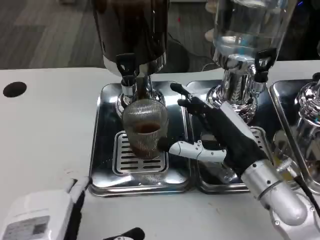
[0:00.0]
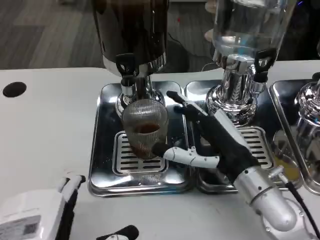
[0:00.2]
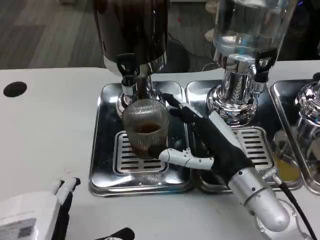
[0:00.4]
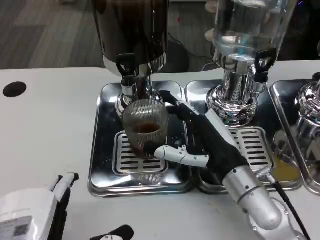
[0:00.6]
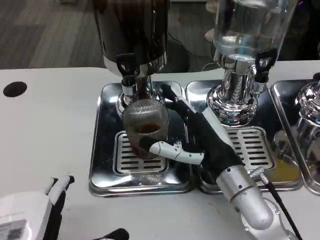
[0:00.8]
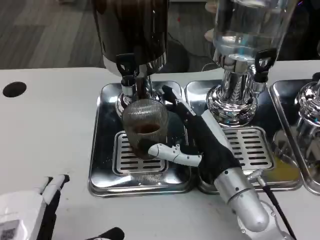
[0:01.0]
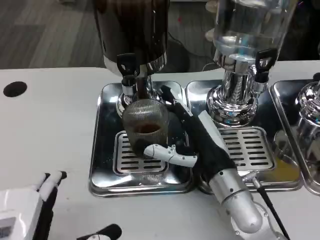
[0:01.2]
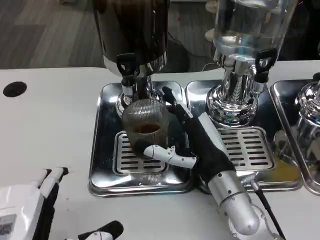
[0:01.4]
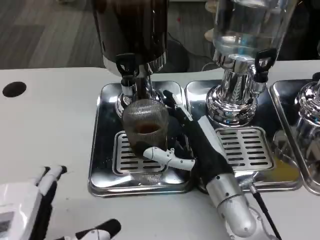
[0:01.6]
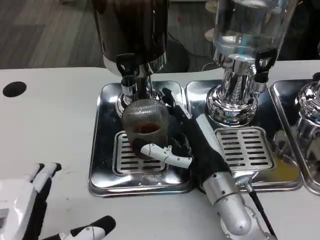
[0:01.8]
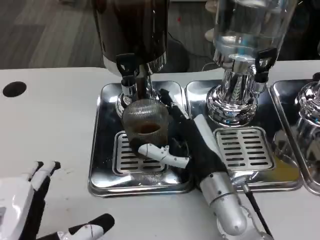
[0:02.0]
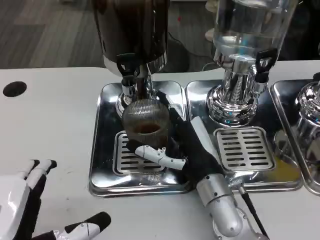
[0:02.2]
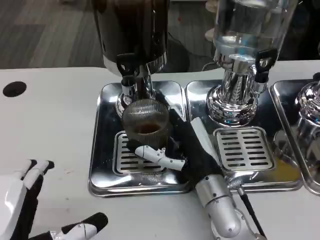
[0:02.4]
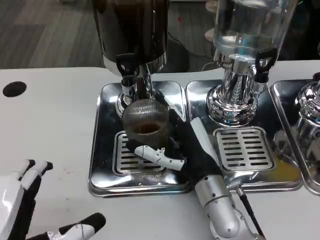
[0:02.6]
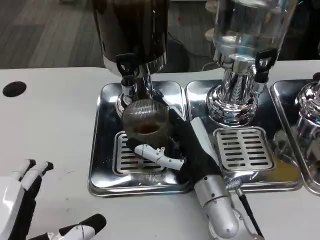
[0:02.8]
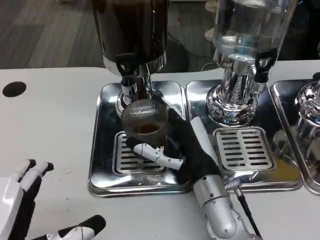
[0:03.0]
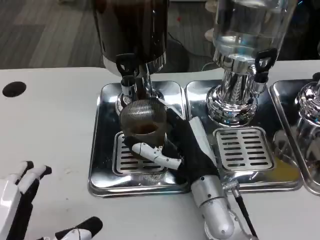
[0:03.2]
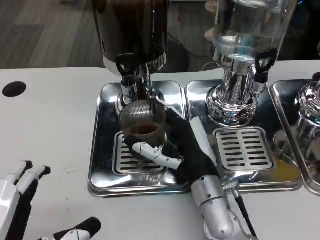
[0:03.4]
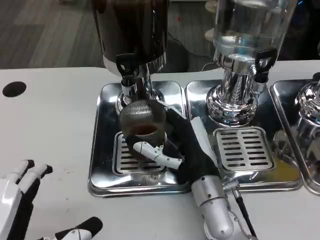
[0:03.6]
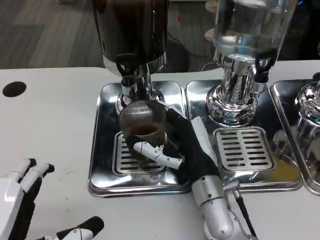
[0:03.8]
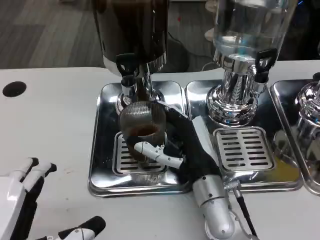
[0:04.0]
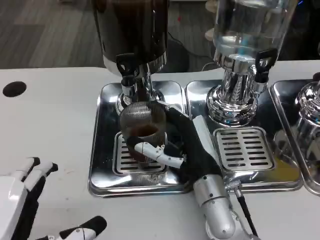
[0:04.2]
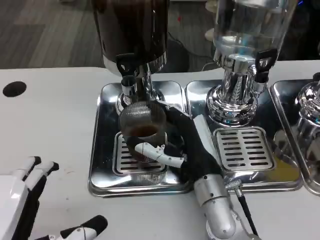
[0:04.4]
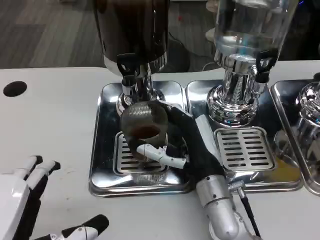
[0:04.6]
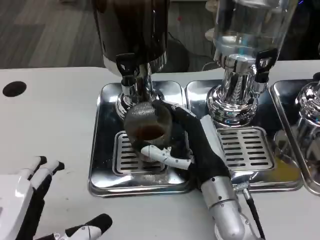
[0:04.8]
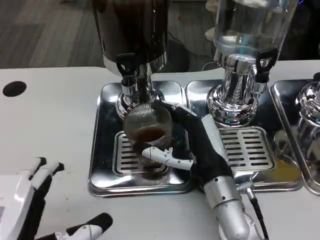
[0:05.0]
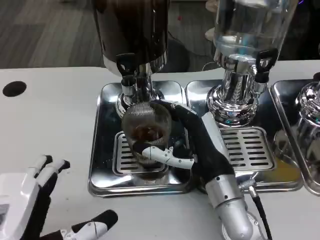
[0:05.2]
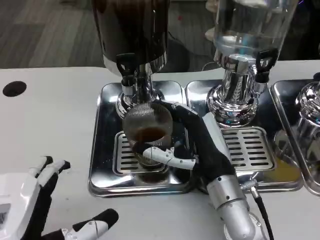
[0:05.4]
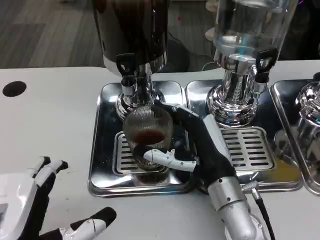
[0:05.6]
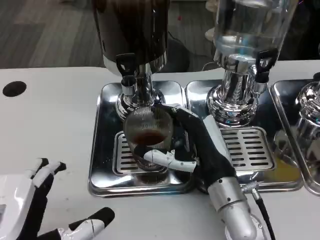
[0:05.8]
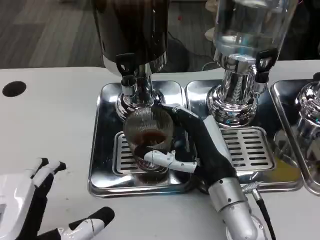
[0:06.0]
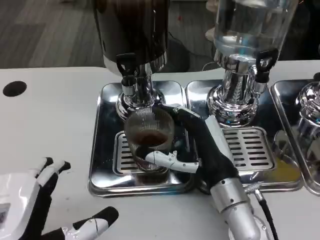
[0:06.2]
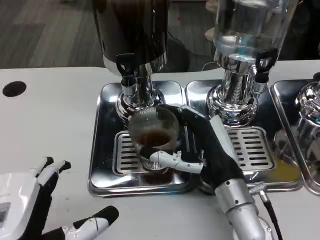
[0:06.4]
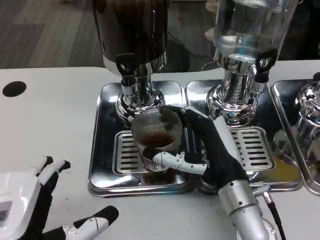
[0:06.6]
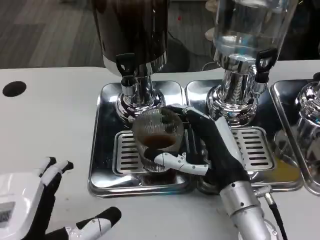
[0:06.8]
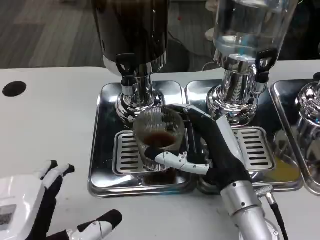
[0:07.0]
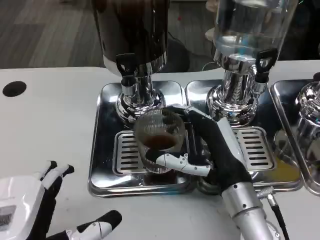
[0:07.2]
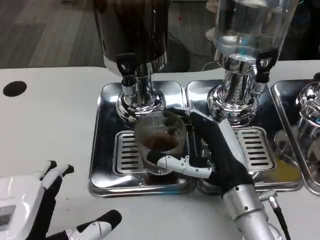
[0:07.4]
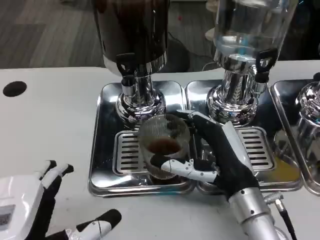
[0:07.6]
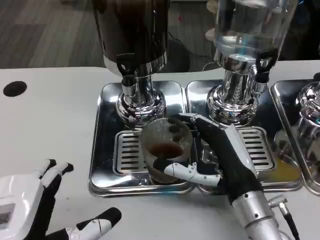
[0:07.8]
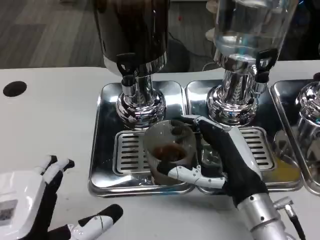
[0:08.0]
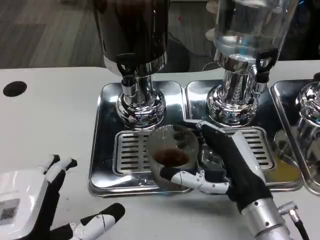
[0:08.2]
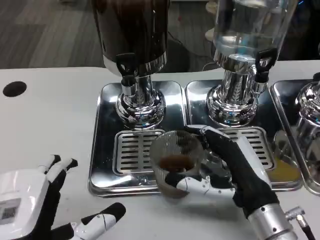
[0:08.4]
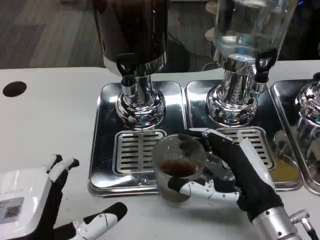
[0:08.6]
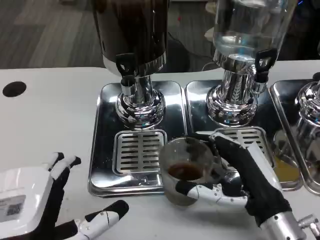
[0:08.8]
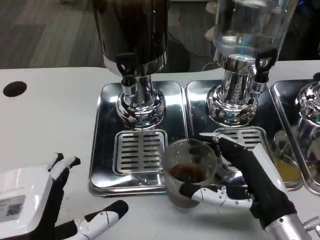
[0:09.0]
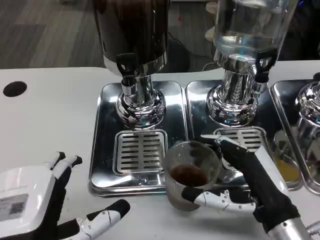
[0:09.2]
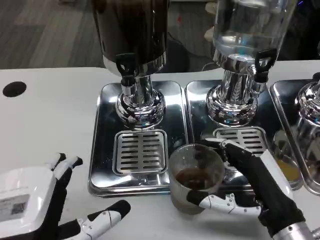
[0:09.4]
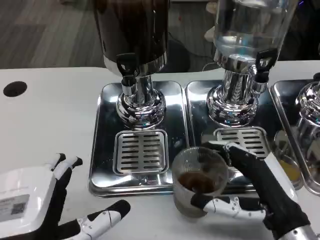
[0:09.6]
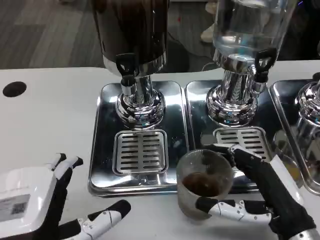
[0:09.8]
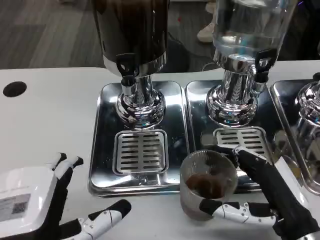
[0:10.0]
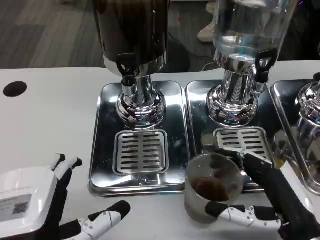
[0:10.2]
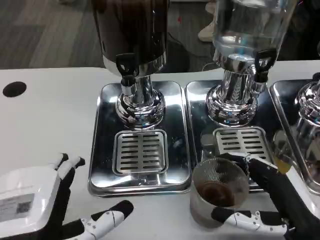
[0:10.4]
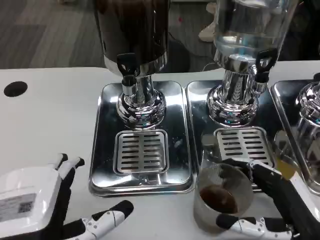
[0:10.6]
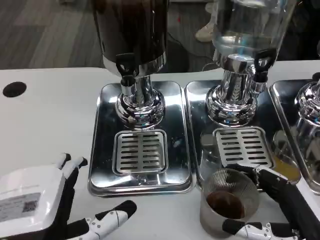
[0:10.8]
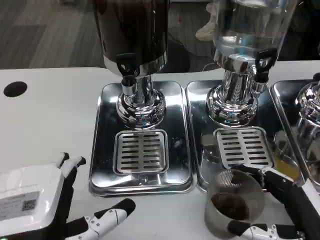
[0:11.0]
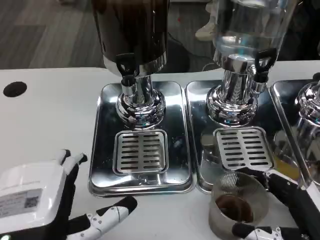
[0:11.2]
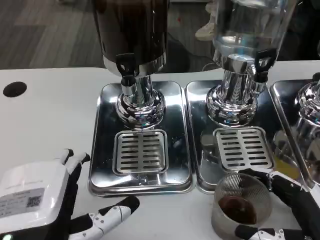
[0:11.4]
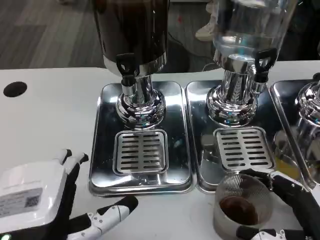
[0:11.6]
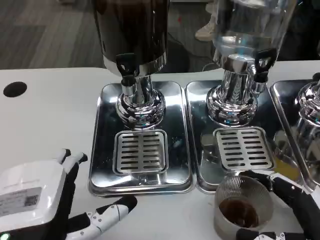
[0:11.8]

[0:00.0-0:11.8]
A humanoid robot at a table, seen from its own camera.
Task of the whole recording: Grasp the cup under the faucet to collect the drink, then remove the cup.
0:00.0 to 0:01.4: The right hand is displaced to the left by some 5 cm.
0:01.4 to 0:03.0: The hands move only a little.
0:03.0 to 0:04.4: Both hands stay about where they are.
0:04.4 to 0:07.4: The hands stay close to where they were, moving slightly.
0:07.4 to 0:08.8: The right hand goes about 5 cm to the right.
0:08.8 to 0:10.4: The right hand moves approximately 5 cm.
0:10.4 to 0:11.8: The hands make only small movements.

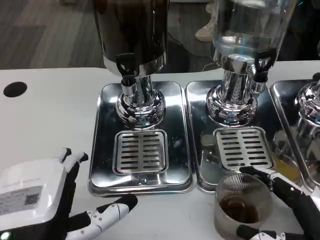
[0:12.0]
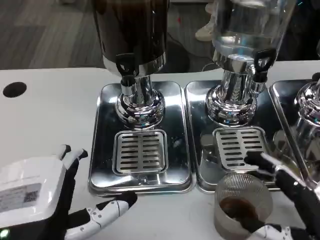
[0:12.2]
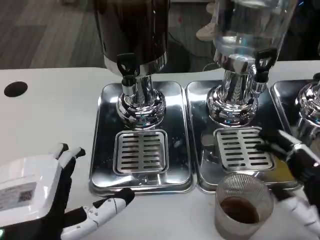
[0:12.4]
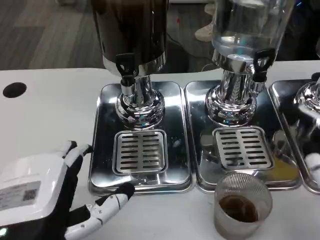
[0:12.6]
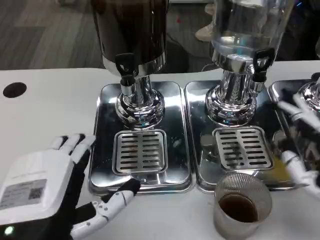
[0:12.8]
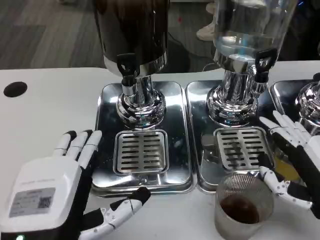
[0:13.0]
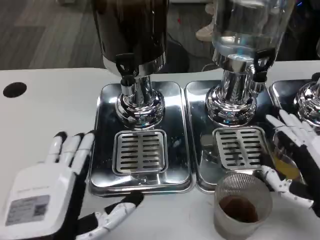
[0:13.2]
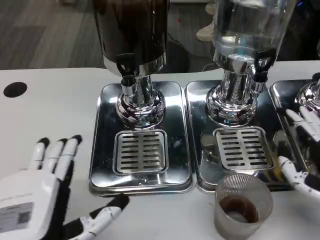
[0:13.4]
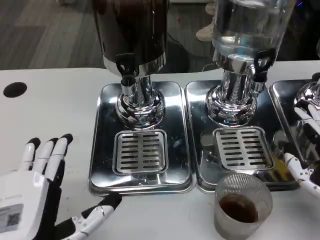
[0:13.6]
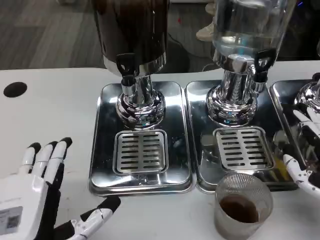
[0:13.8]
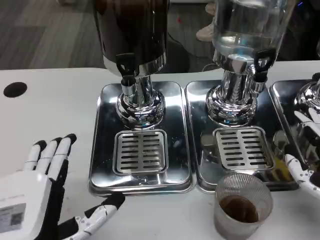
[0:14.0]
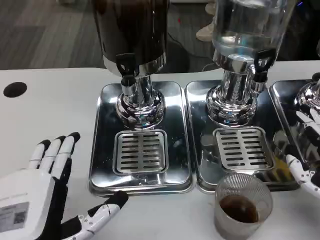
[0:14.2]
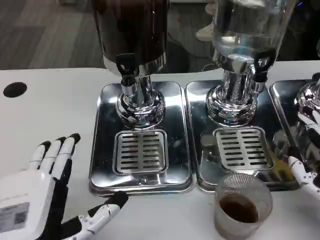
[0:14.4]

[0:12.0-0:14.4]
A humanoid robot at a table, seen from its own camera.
Task of the whole recording: Grasp the cup under the faucet to collect the drink, then remove the cup.
0:12.0 to 0:13.2: The right hand moves upward, about 5 cm; the left hand heads downward, covering approximately 5 cm.
0:13.2 to 0:14.4: The hands make only small movements.

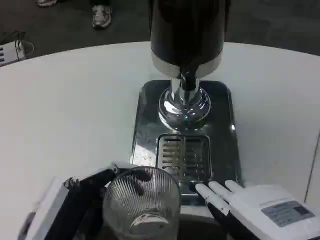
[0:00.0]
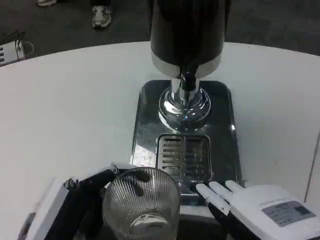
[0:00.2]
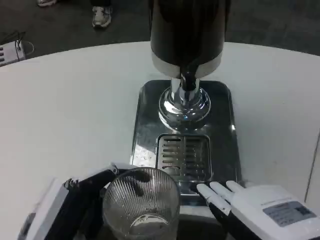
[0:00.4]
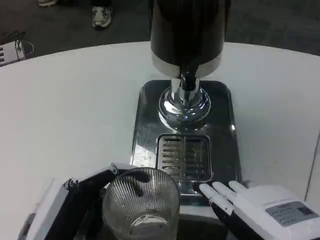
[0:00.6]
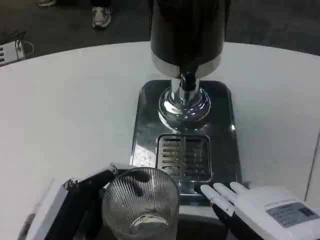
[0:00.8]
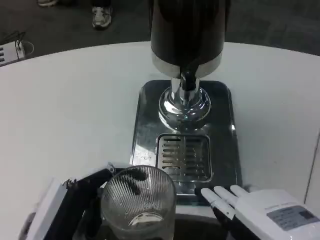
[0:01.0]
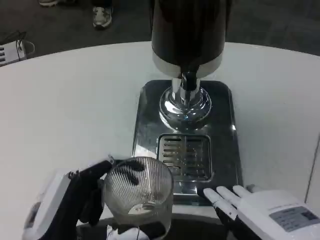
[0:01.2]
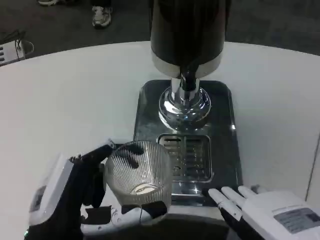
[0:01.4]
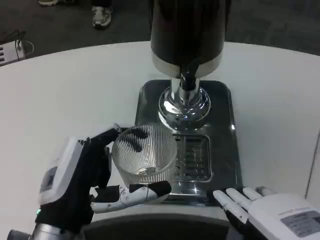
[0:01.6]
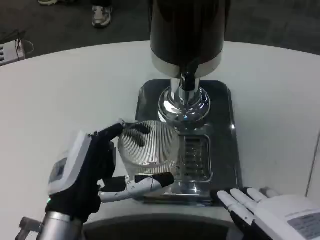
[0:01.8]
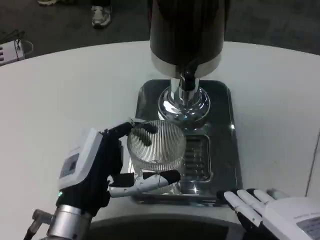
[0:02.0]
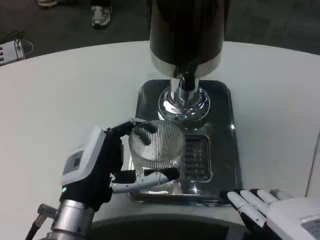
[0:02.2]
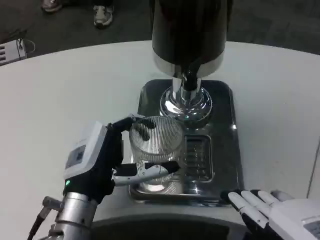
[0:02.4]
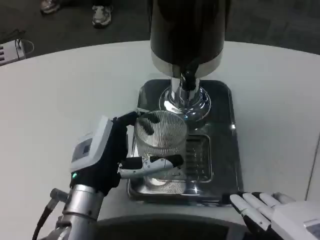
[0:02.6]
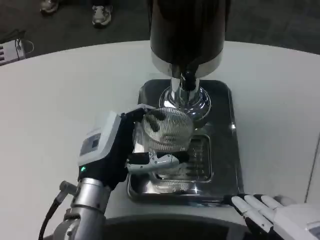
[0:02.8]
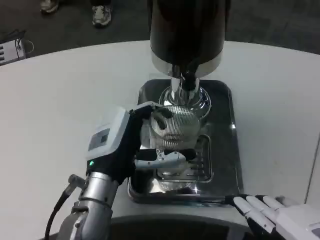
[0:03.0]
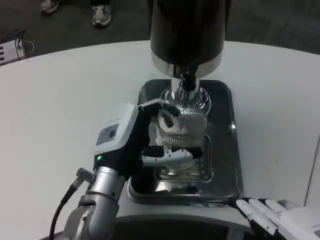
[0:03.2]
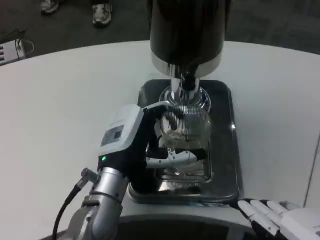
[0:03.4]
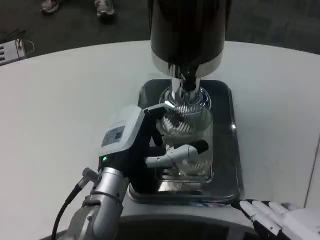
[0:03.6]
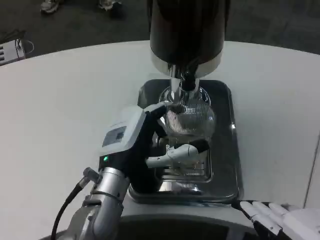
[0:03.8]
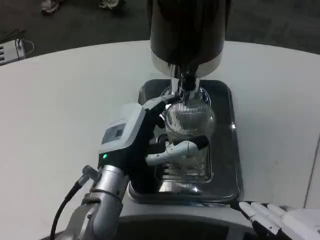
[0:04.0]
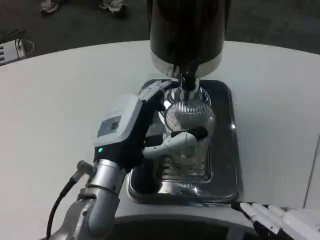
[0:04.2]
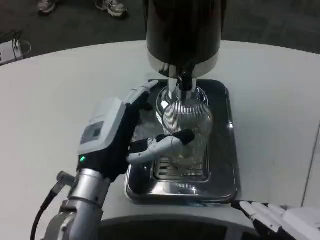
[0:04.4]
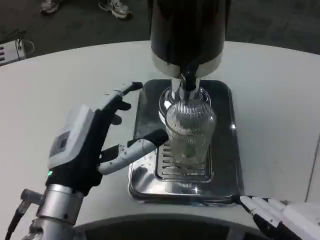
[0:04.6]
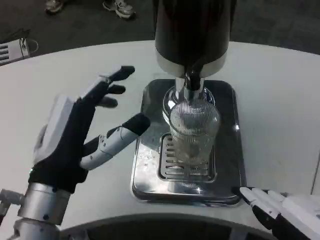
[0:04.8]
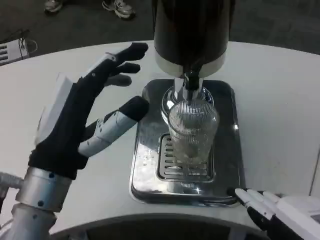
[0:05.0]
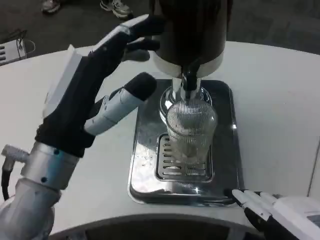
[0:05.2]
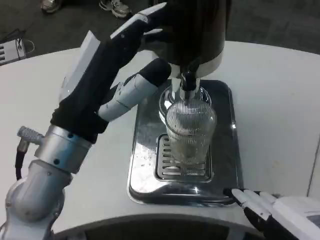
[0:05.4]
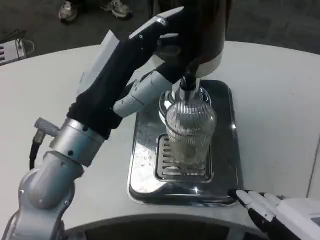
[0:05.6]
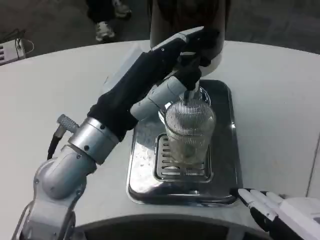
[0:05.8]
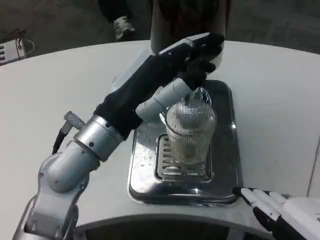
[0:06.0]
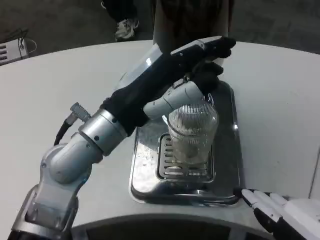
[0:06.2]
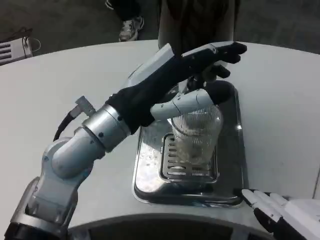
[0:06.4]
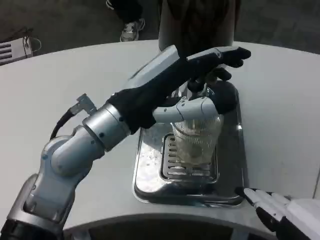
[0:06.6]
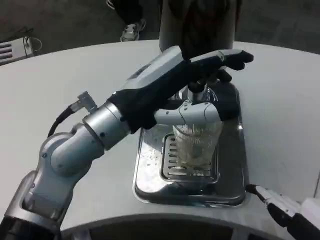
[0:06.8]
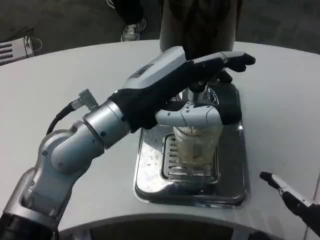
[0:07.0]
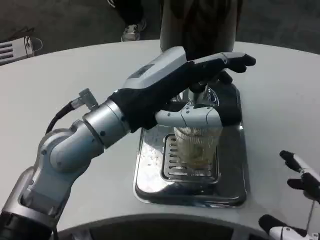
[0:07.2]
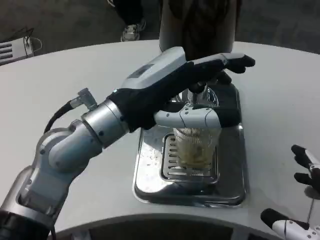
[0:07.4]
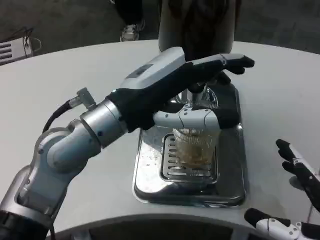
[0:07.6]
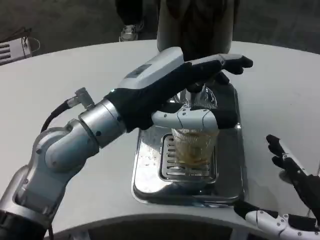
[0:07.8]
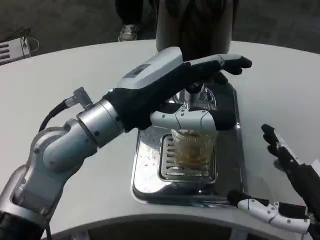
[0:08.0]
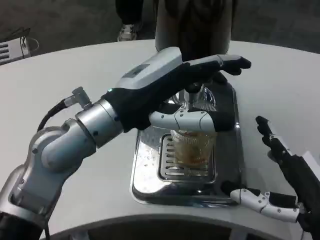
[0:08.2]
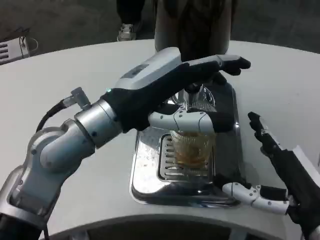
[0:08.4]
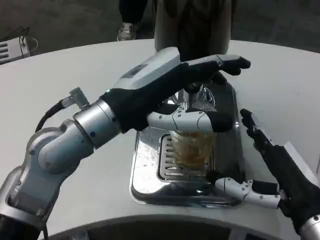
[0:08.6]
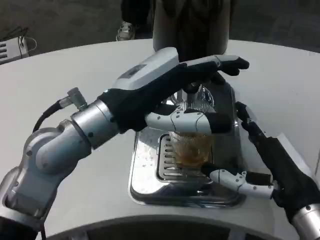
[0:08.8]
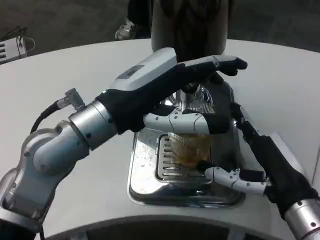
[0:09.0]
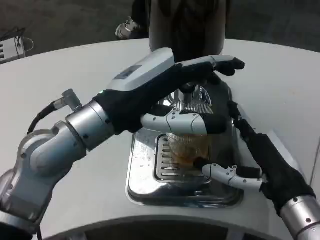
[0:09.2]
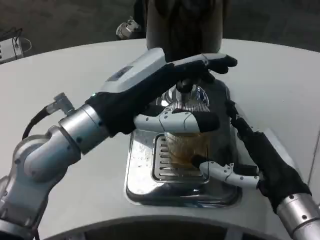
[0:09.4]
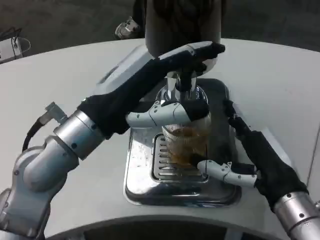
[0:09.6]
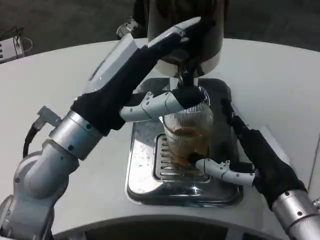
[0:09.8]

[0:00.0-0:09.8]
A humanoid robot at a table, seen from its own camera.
Task of the whole recording: Grasp the cup under the faucet to collect the drink, then remove the cup.
0:00.0 to 0:01.4: The hands stay close to where they were, moving slightly.
0:01.4 to 0:02.8: The left hand goes roughly 10 cm forward.
0:02.8 to 0:04.2: The hands move only a little.
0:04.2 to 0:05.6: The left hand goes some 10 cm upward.
0:07.0 to 0:08.4: The right hand heads forward, covering about 10 cm.
0:08.4 to 0:09.8: The right hand shifts by approximately 5 cm.
